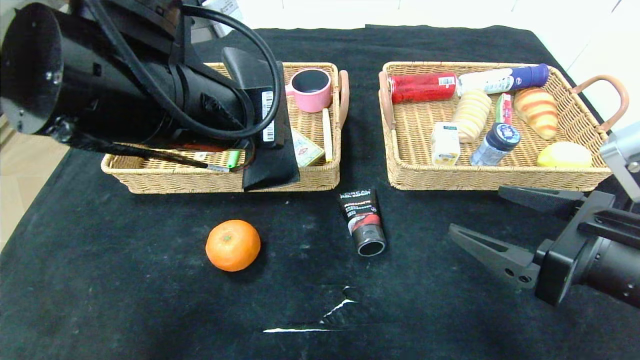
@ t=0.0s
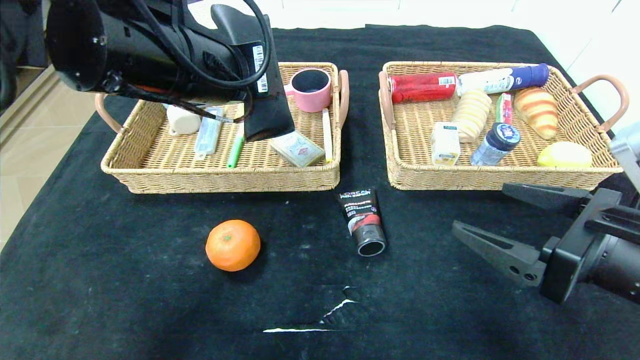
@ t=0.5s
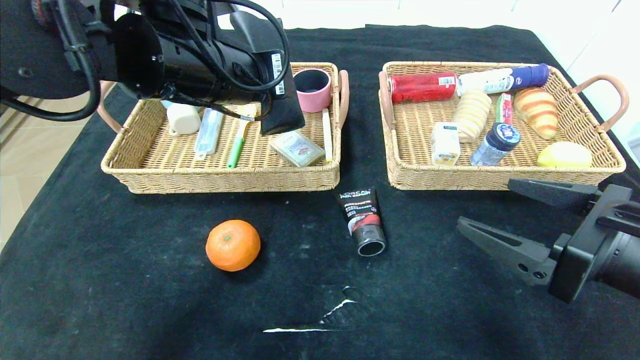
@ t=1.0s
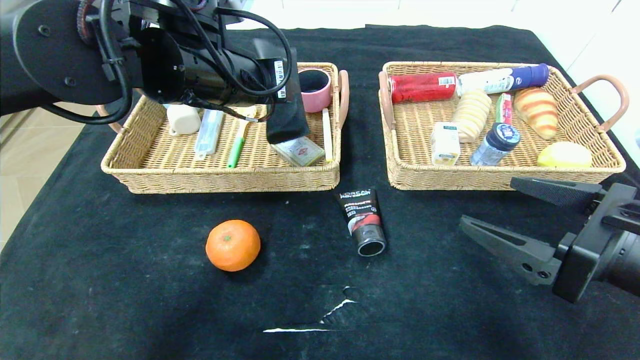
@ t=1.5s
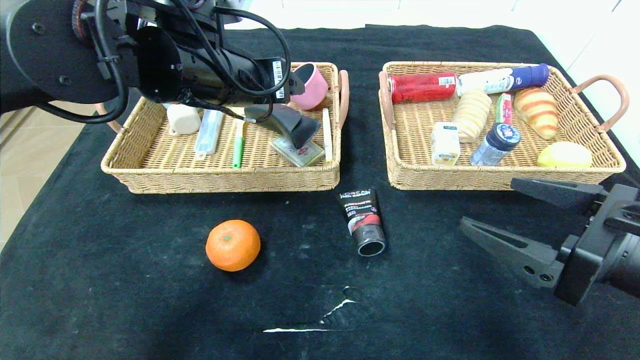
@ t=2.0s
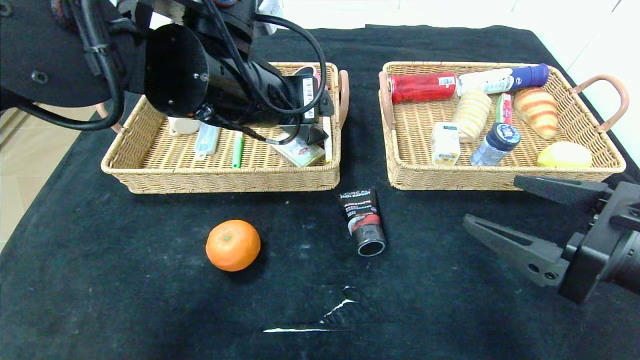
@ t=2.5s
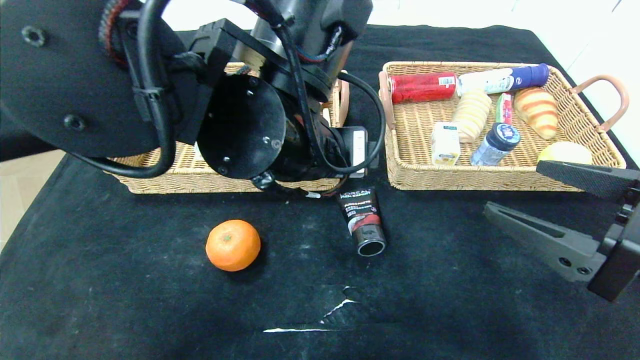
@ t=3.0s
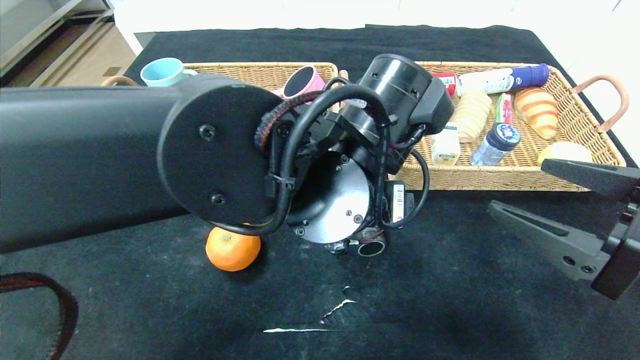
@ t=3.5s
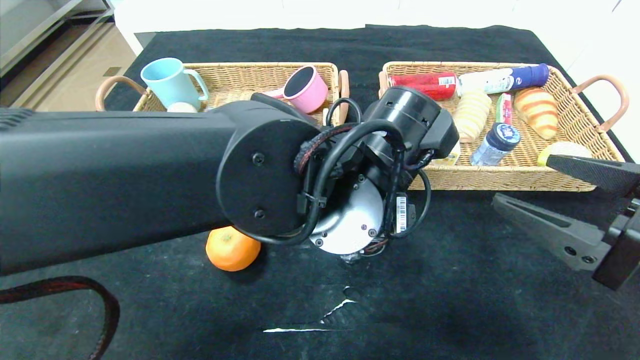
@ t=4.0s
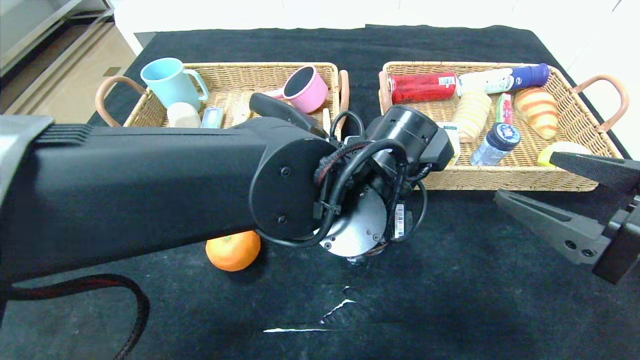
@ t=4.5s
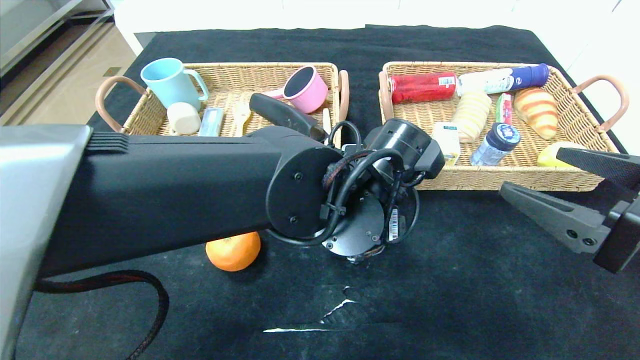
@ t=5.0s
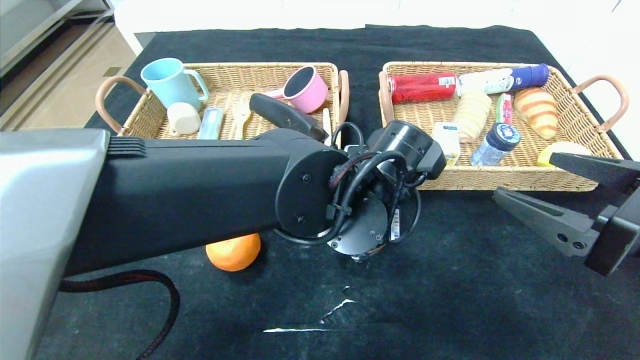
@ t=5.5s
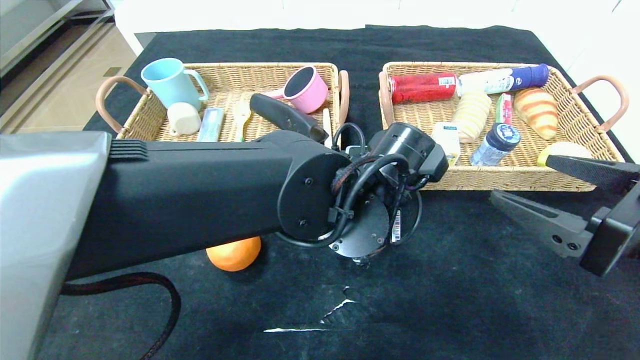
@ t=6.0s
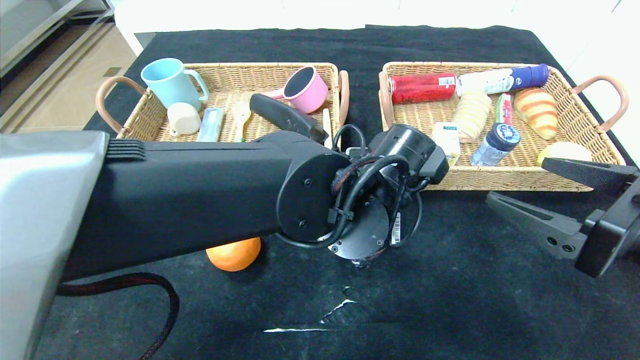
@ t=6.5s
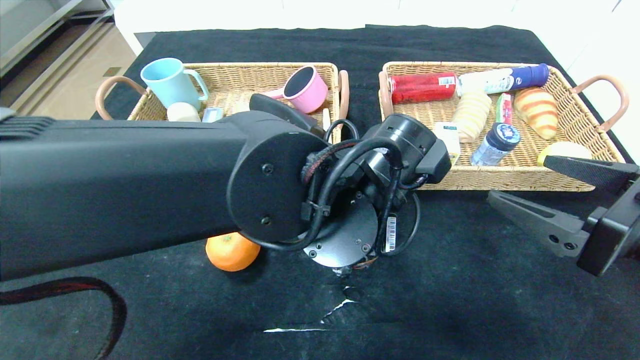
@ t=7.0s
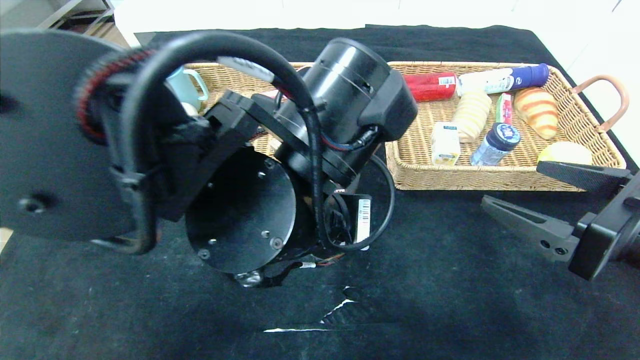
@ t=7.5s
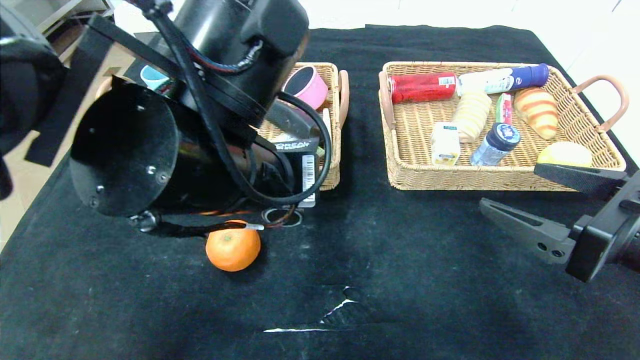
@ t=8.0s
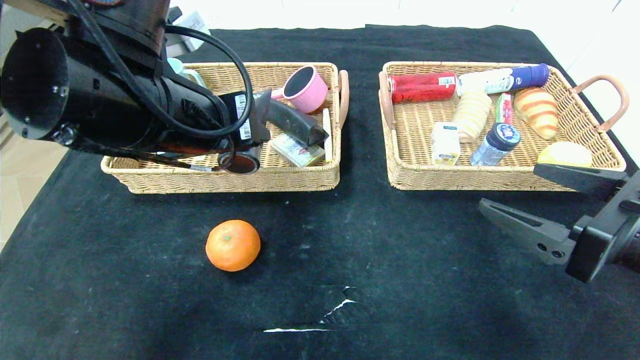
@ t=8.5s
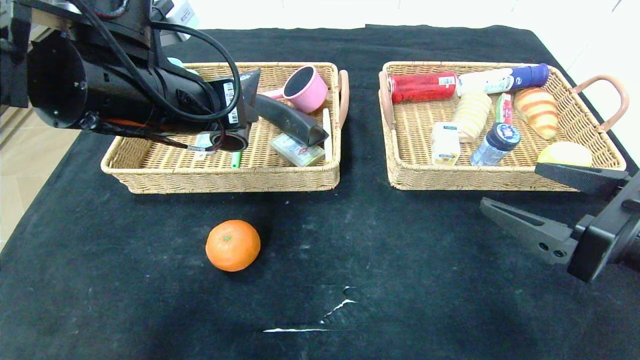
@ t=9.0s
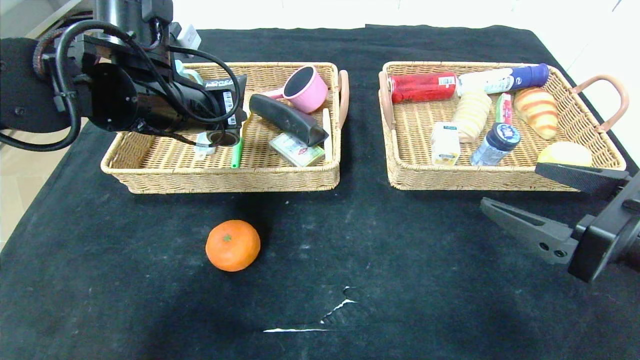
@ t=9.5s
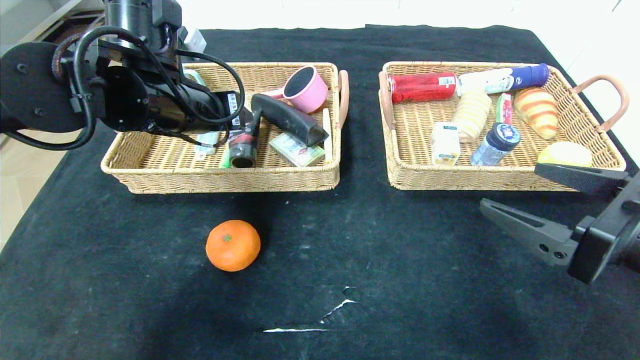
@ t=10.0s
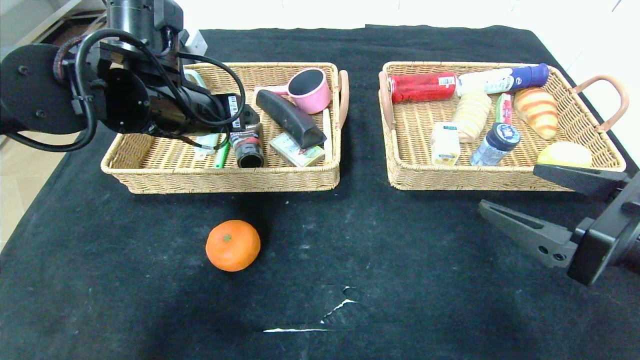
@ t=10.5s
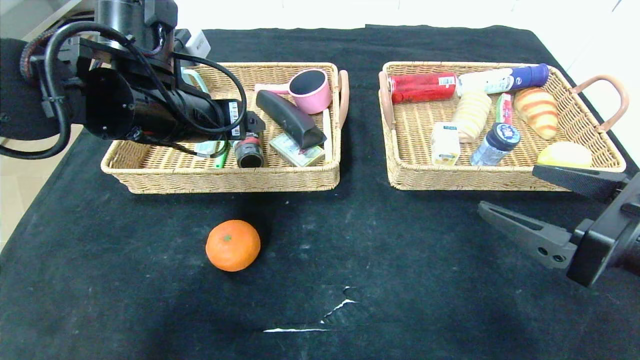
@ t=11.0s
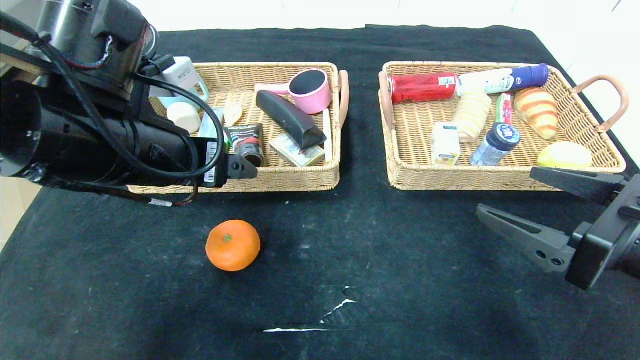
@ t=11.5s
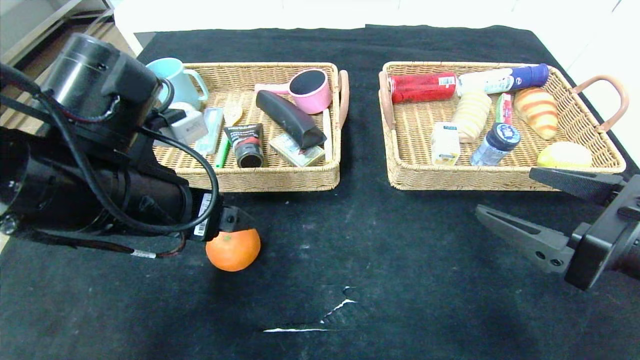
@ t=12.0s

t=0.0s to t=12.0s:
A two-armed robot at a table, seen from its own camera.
Step, t=0.0s to t=3.0s: Pick up the glasses case and put it in the left basket.
Step, t=3.5s to t=12.0s: Pick up the soft cleanser and put it in the left basket.
t=0.0s to t=2.0s: The left gripper shifts some 10 cm forward, and opens its fingers.
t=2.0s to t=4.0s: The left gripper heads to the right, downward and backward, covering some 20 cm.
t=4.0s to t=6.0s: The left gripper closes its fingers.
t=6.0s to t=8.0s: The left gripper shifts about 15 cm to the left, upward and backward.
t=8.0s to t=10.0s: The left gripper goes roughly 15 cm forward and to the left.
t=10.0s to t=12.0s: The left gripper heads backward, covering roughly 10 cm, and opens its fingers.

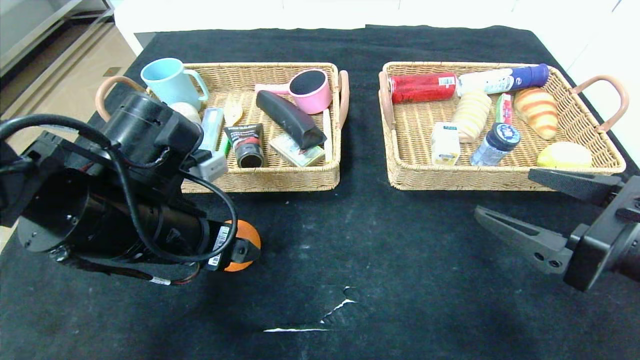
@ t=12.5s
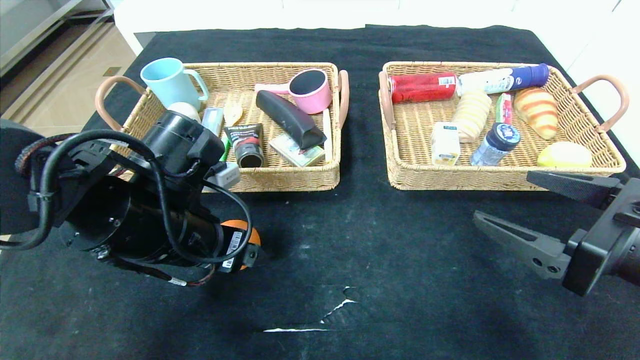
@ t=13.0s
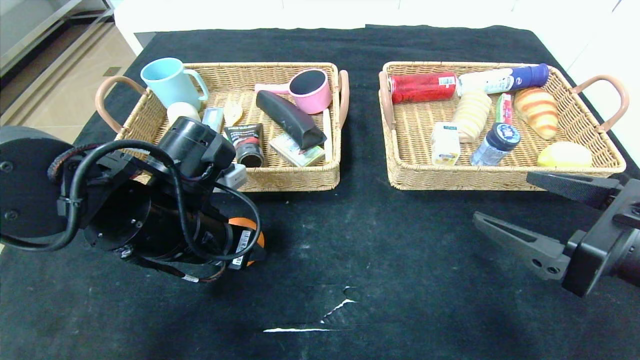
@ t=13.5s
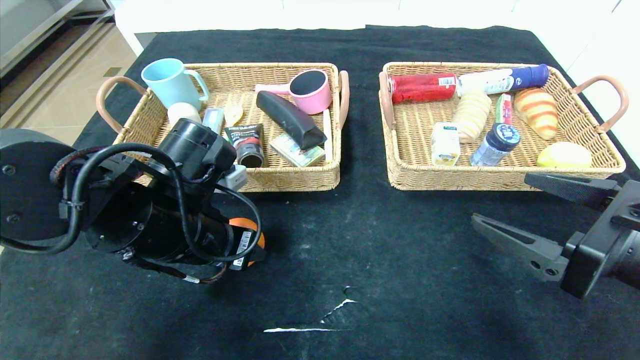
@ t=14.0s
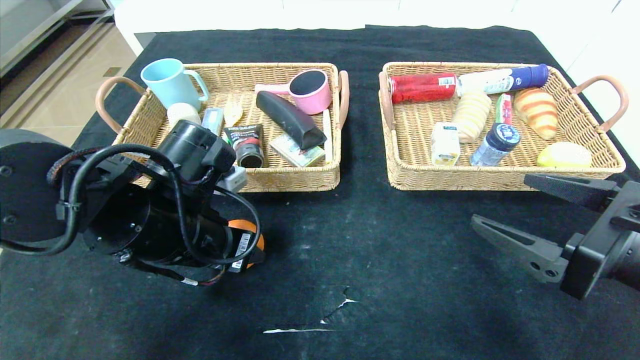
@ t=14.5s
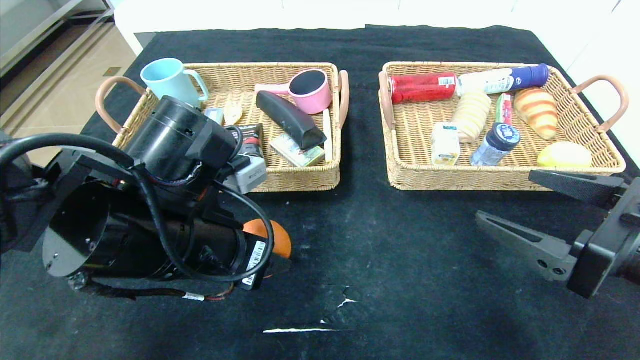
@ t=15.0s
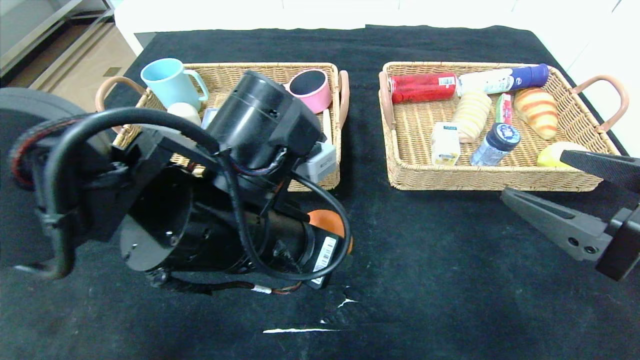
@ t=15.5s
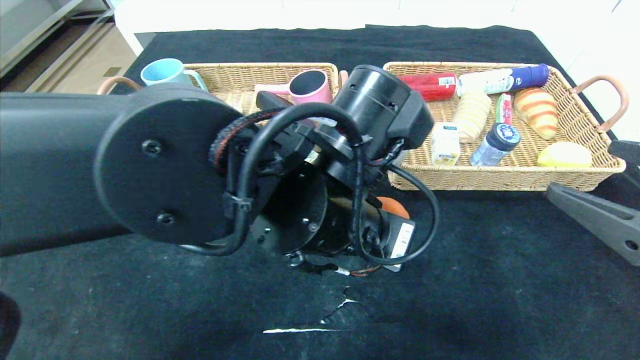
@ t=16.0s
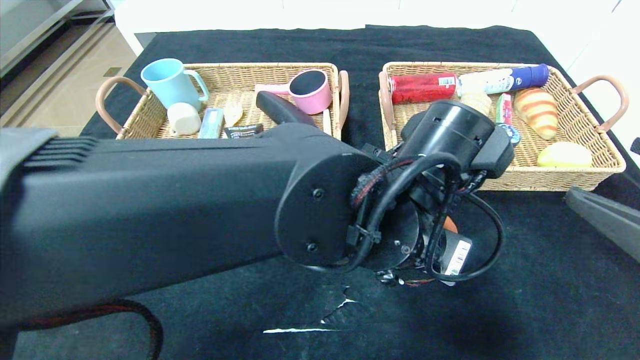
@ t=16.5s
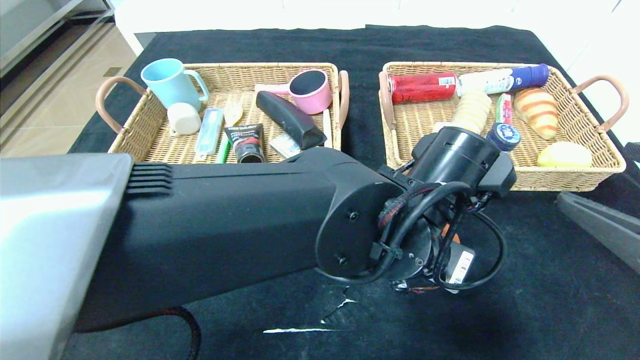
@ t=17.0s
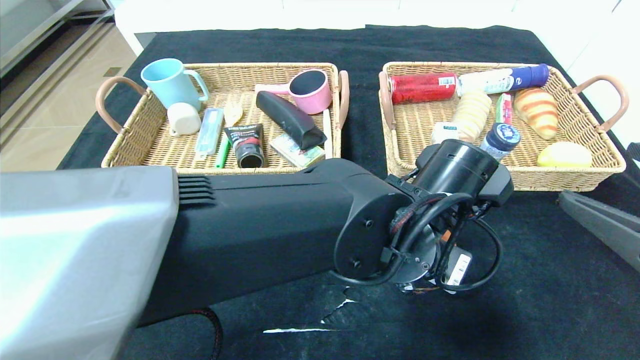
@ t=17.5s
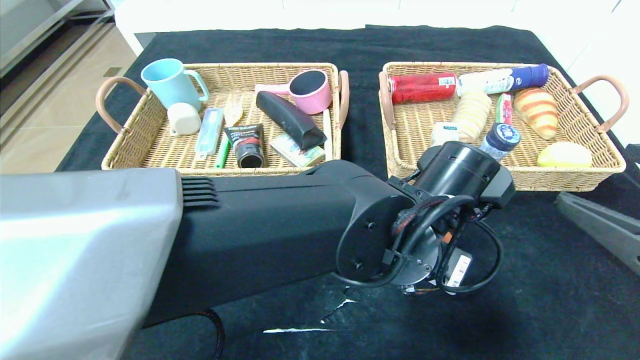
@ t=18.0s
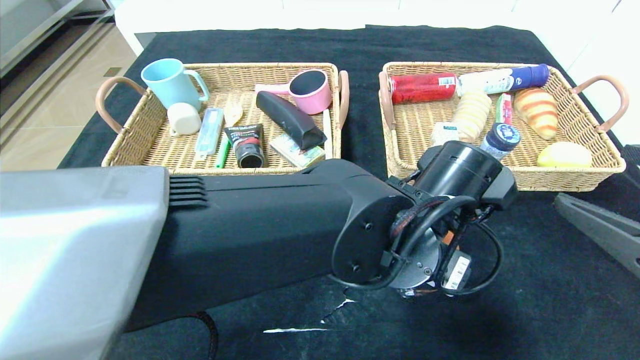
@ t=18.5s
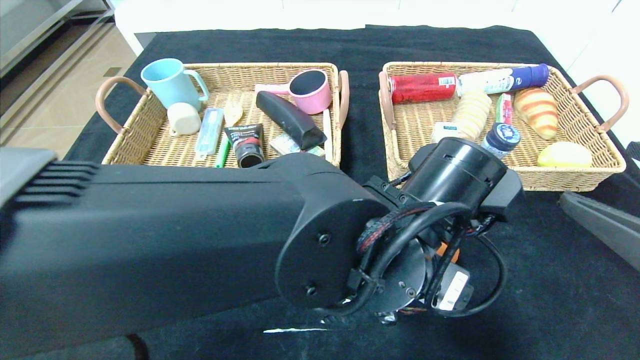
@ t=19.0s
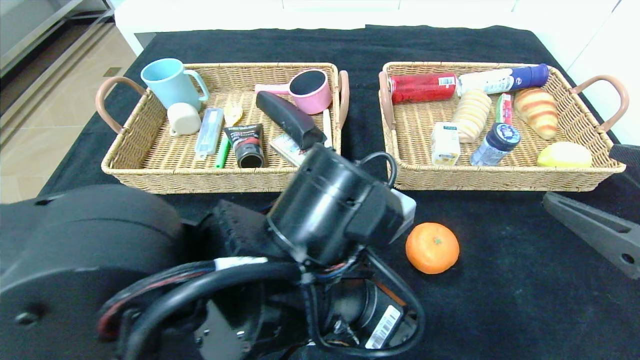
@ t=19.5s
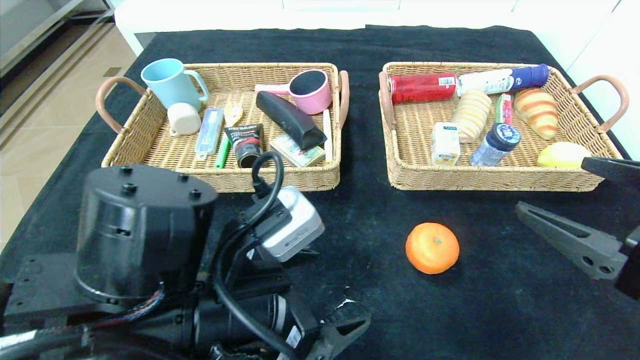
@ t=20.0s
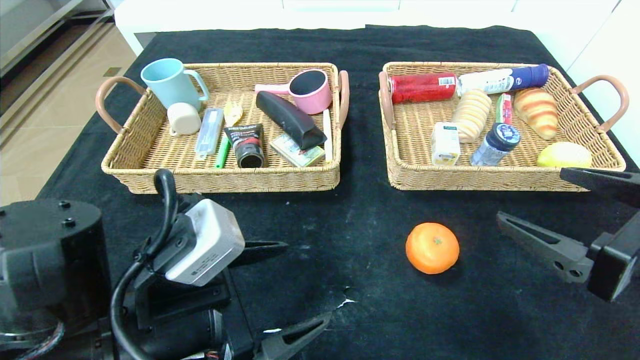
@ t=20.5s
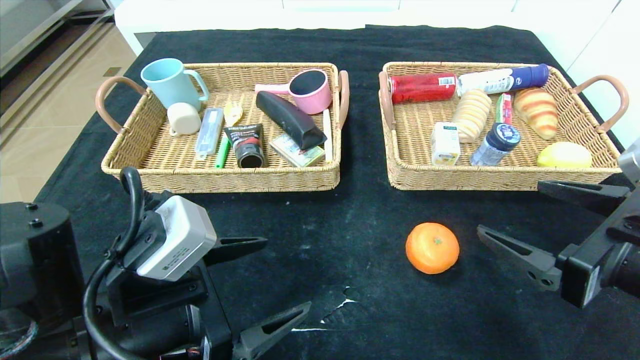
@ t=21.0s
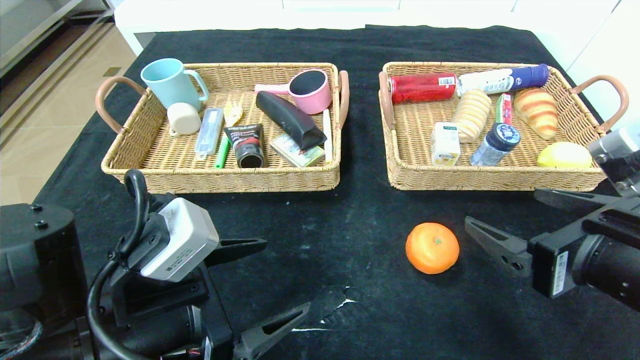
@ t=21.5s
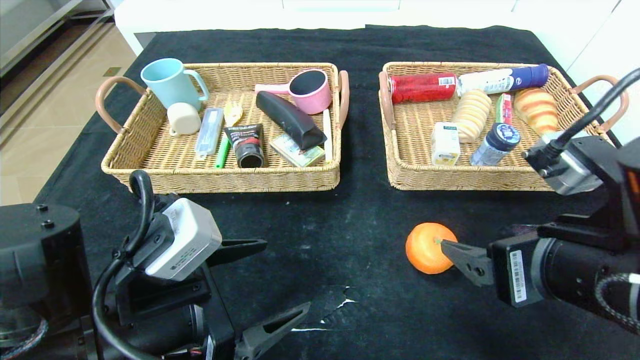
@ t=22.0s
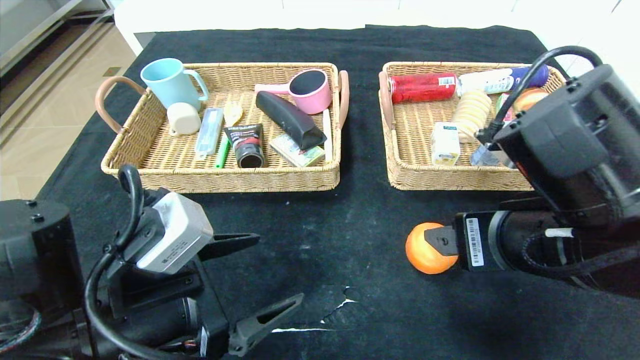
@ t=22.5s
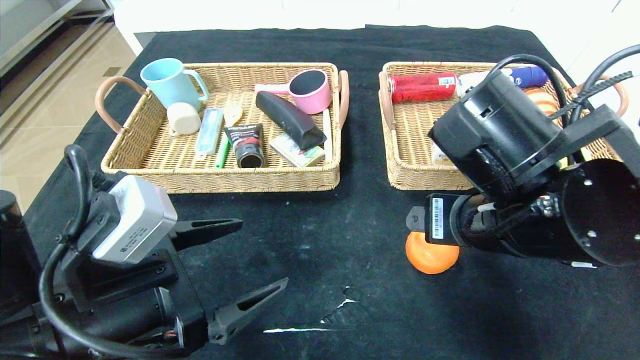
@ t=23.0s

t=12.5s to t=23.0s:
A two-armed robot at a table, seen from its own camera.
Step, t=12.5s to t=19.0s: Place the orange in the center of the table.
t=12.5s to t=14.5s: The left gripper closes.
t=14.5s to t=16.5s: The left gripper goes roughly 20 cm to the right. Meanwhile the right gripper moves some 5 cm.
t=19.0s to t=21.0s: The right gripper moves roughly 5 cm; the left gripper moves to the left, about 20 cm.
t=21.0s to t=23.0s: The right gripper shifts roughly 15 cm to the left and forward.
